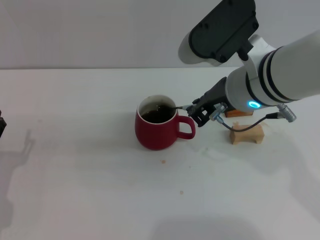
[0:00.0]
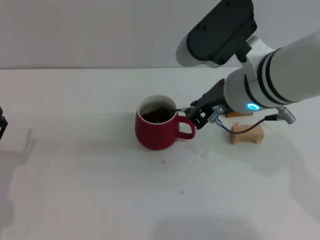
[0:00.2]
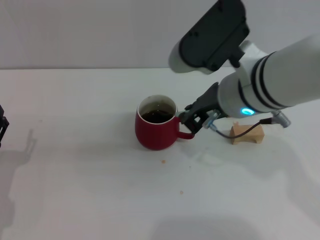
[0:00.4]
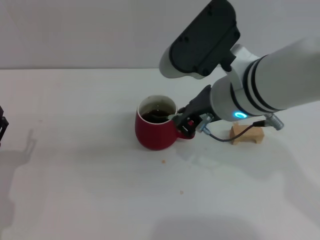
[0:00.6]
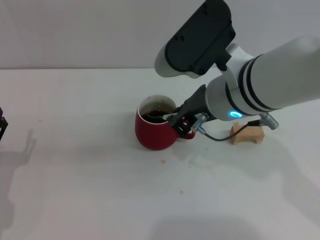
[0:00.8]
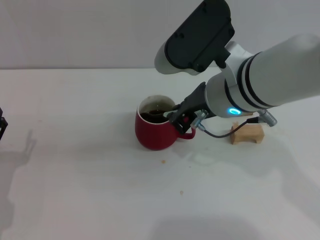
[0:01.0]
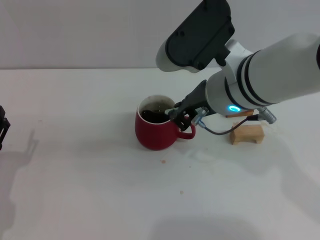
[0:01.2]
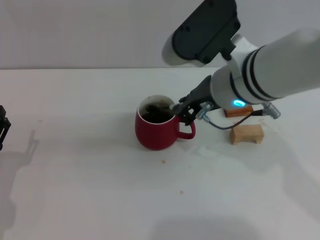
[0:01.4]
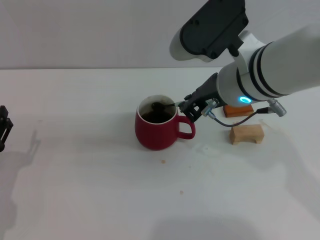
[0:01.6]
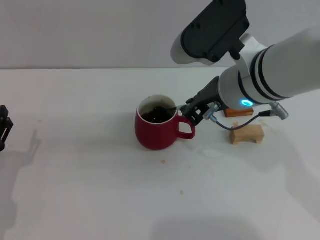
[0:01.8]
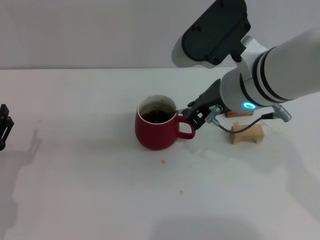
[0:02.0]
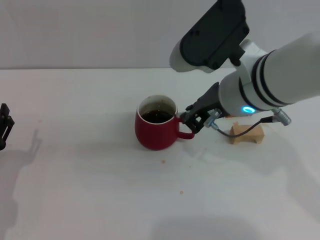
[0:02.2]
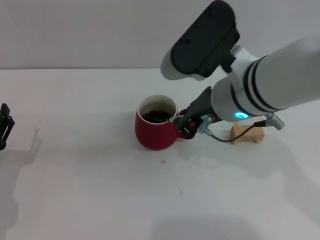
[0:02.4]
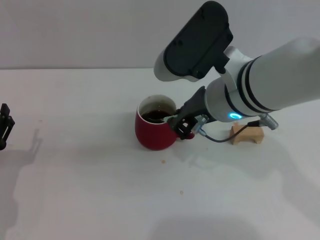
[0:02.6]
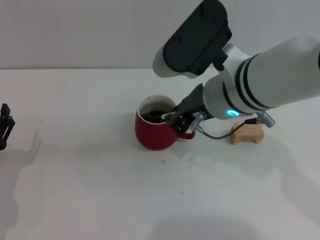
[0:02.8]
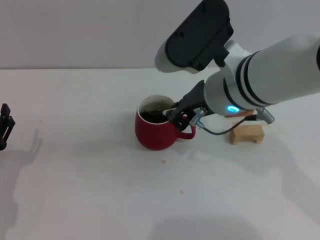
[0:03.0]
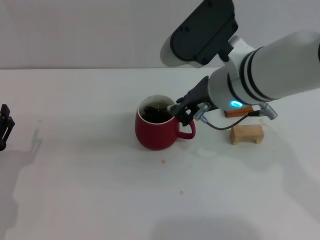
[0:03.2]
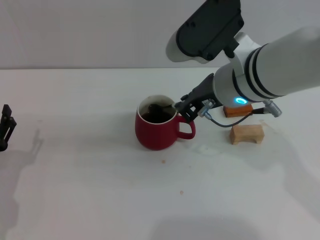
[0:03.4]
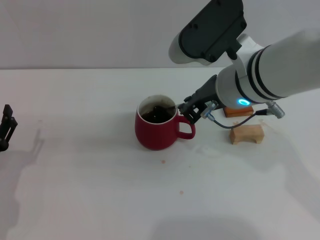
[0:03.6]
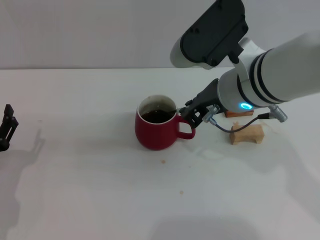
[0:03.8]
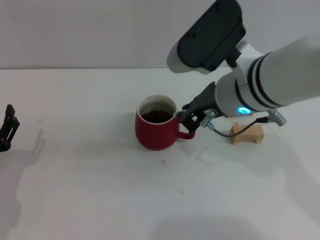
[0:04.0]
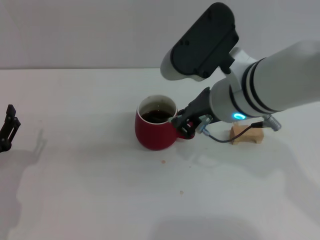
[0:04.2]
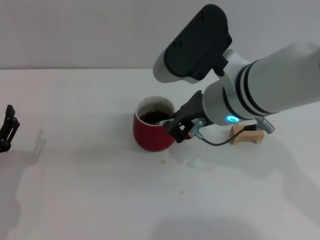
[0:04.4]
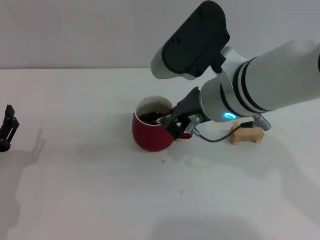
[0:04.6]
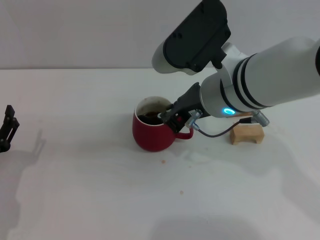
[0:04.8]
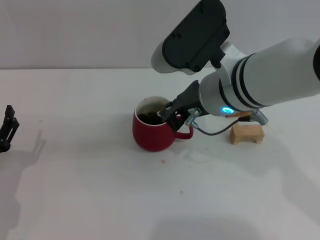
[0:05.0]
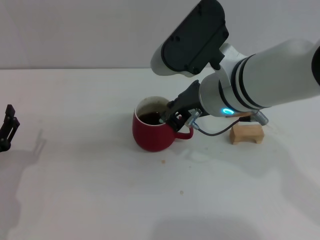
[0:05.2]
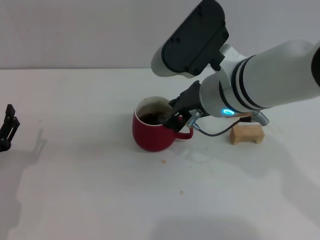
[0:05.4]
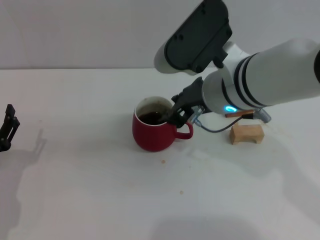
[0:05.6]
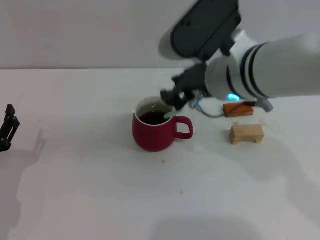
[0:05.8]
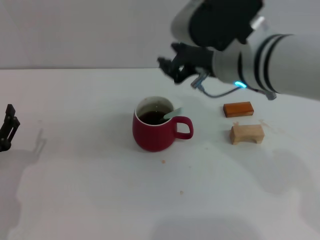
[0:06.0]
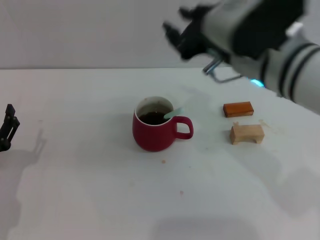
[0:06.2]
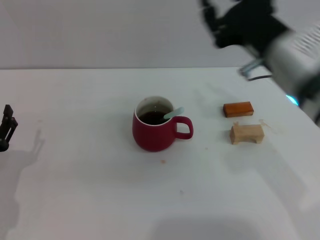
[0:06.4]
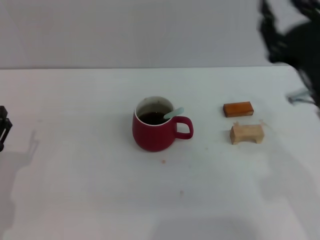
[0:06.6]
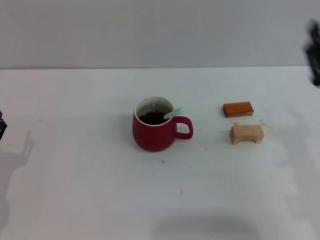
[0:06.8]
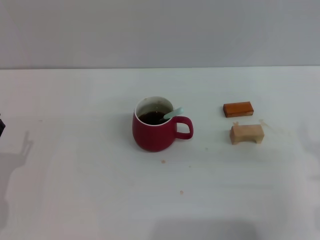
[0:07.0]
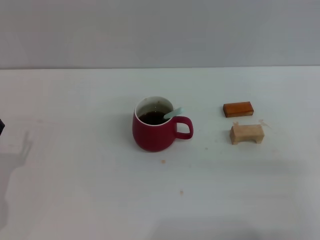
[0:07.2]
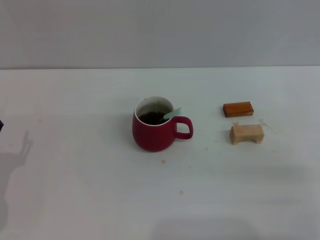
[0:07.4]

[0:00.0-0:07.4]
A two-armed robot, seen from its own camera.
Task of the whole recording: Move the red cup to the center, lift the blue spoon, stir it three times in the cup, and put the spoon into the cup.
Step, 0:00.0 to 0:05.8: Stir the coffee in the cup with the right gripper.
0:00.0 to 0:04.4: The grippers stay close to where they were, moving slightly.
0:04.4 to 0:06.0: The right gripper opens its fingers.
0:06.0 to 0:07.4: The right gripper goes about 30 cm to the right, downward and backward, and opens its fingers.

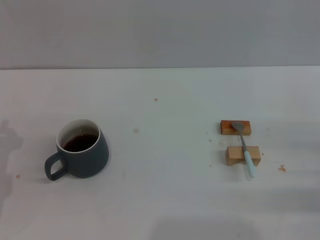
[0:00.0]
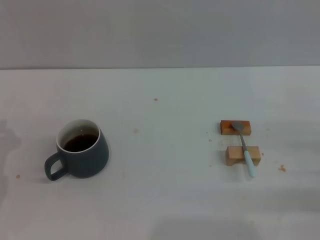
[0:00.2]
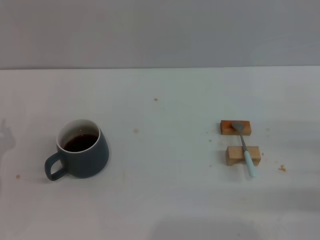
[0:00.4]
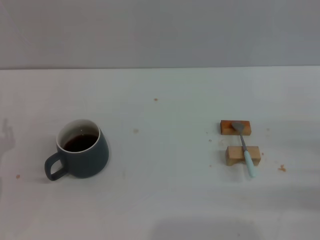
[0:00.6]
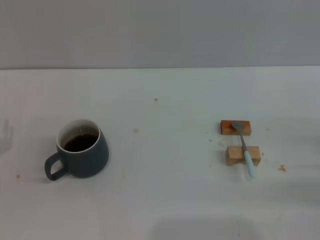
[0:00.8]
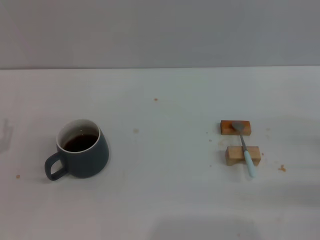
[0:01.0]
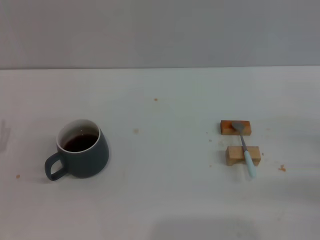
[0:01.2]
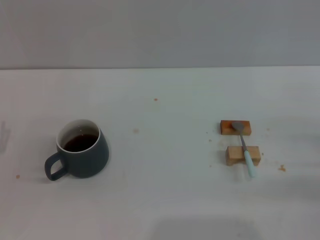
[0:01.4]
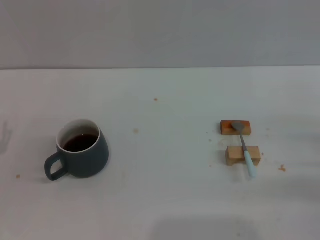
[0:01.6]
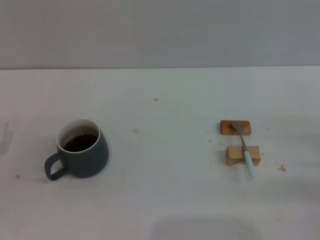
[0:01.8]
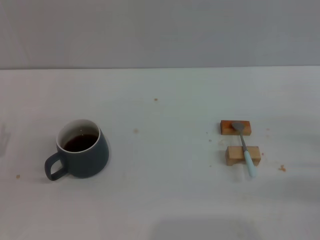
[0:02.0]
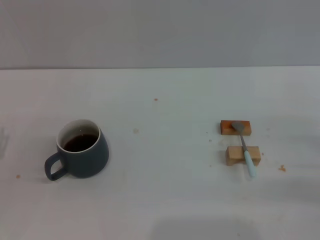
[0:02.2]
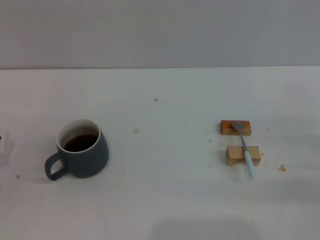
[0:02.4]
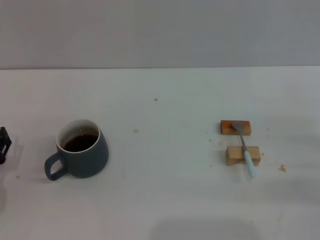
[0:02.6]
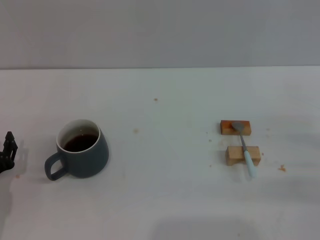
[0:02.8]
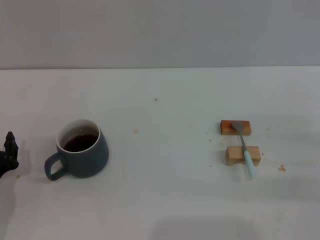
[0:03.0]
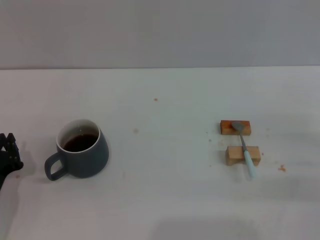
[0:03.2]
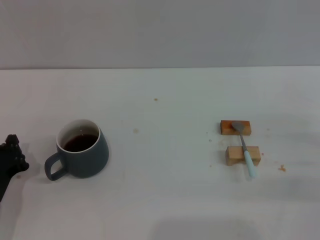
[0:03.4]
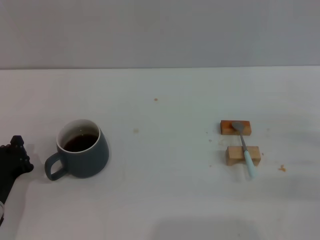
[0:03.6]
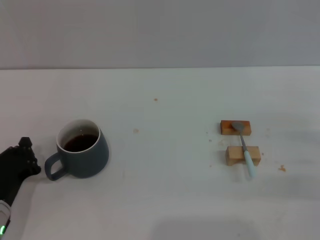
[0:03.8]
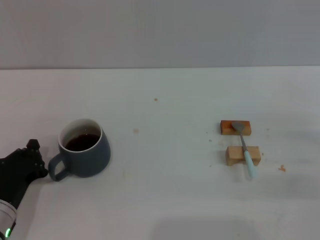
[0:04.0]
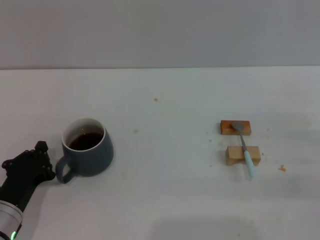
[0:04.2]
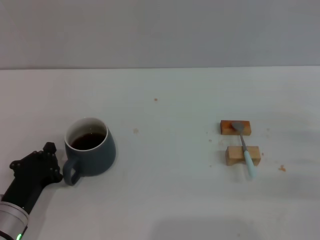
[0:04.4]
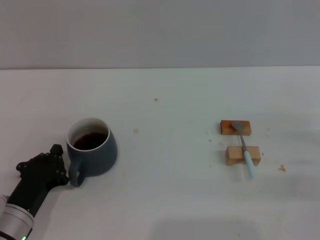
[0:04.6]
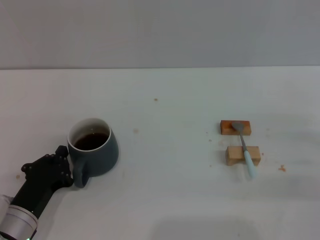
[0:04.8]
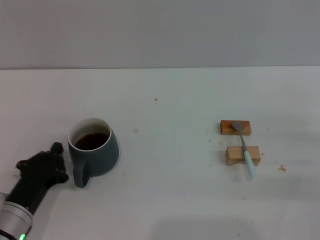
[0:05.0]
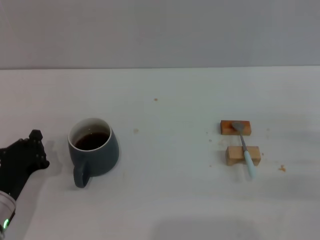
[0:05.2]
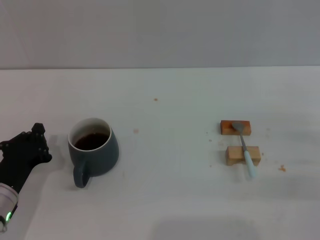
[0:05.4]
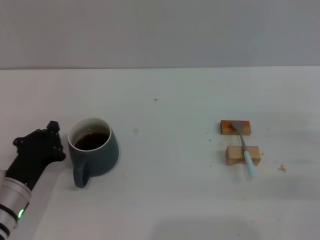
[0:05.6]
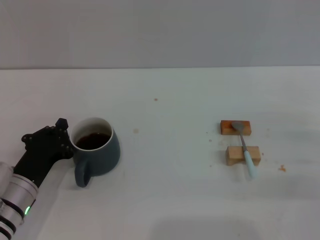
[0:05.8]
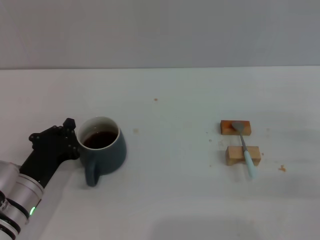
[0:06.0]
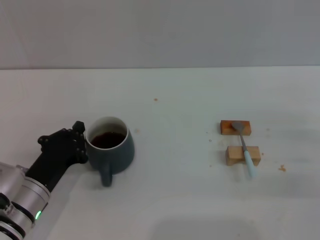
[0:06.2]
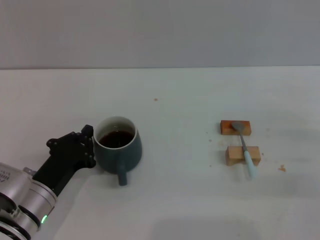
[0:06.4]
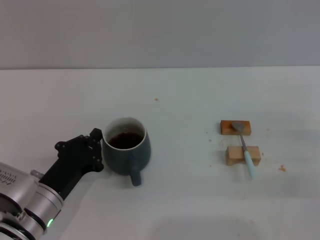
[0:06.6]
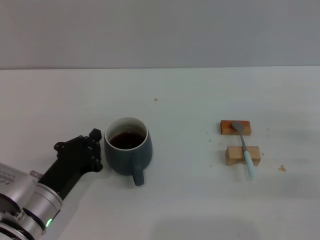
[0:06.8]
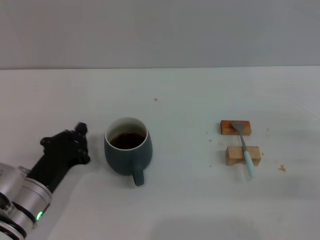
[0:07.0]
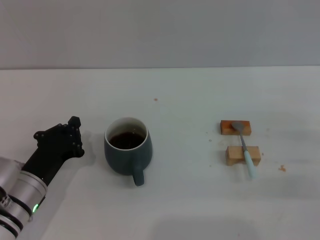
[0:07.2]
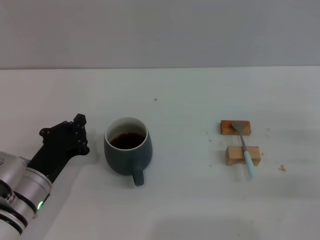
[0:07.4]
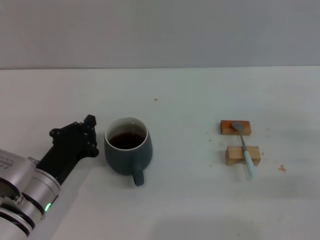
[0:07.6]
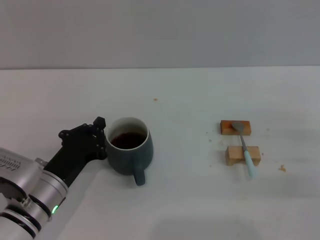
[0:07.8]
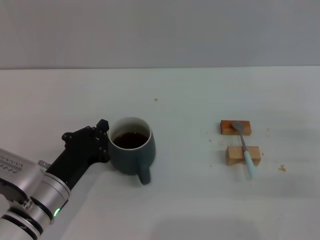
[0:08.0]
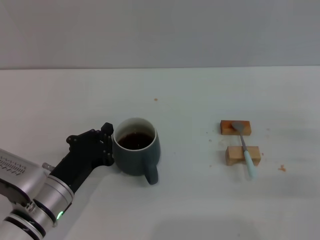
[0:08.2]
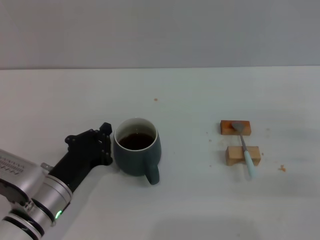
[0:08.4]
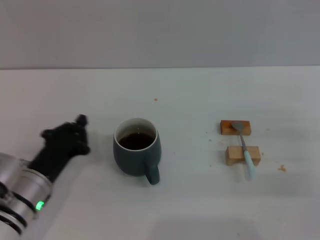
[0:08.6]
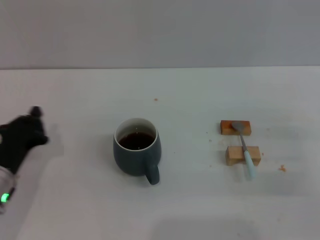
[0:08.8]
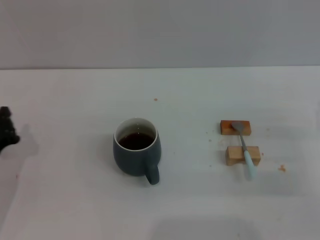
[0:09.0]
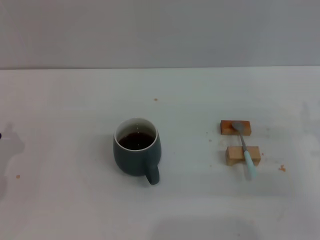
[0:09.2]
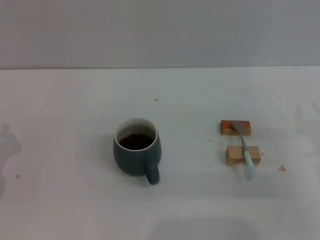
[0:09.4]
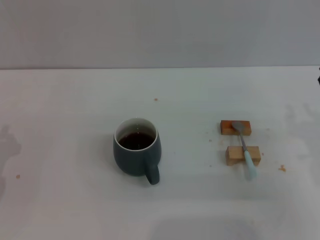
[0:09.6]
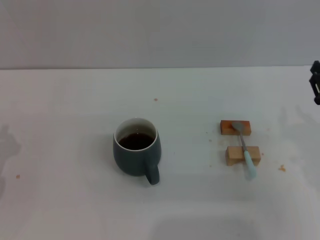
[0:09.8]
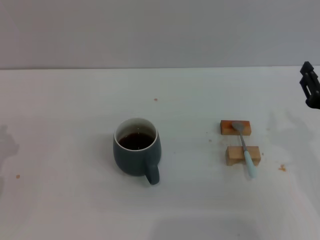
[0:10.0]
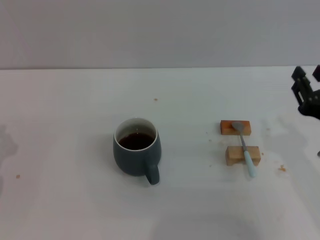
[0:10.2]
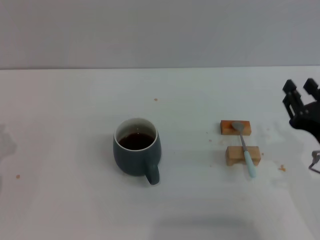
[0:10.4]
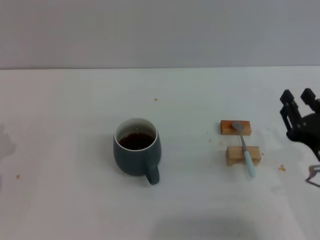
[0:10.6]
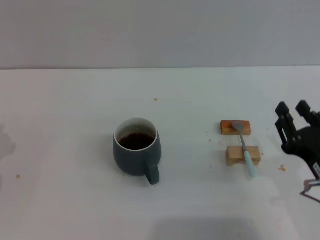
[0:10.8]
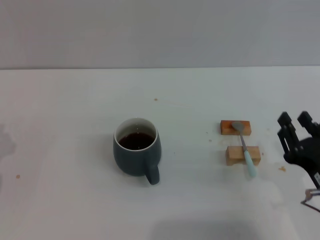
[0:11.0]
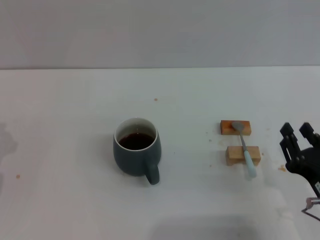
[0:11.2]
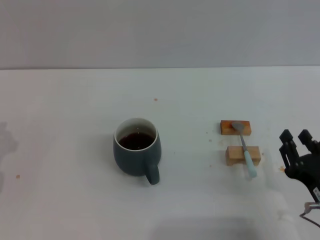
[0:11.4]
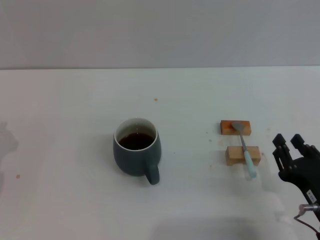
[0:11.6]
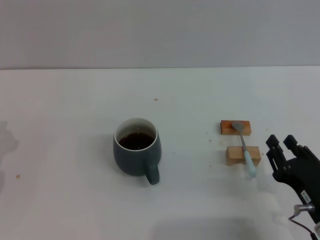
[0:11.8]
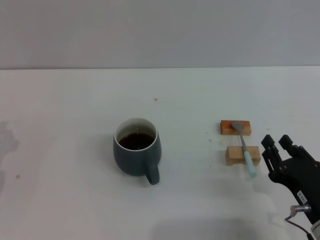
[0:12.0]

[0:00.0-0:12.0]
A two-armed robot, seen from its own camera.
Task of the whole recording: Move the grey cup to the center, lift the blue spoon, stir it three times in the cup, and put the spoon into the cup.
Step, 0:00.0 to 0:08.4: Move the cup with coffee to the center of view with the left gripper.
0:01.6 to 0:03.0: The left gripper moves approximately 5 cm.
0:03.0 to 0:04.4: The left gripper ends up approximately 5 cm from where it was, and closes.
0:04.4 to 0:07.6: The grippers stay close to where they were, moving slightly.
0:07.6 to 0:09.0: The left gripper goes some 10 cm to the left.
0:09.0 to 0:10.4: The right gripper heads to the left and backward, covering roughly 10 cm.
0:10.4 to 0:12.0: The right gripper shifts about 10 cm downward.

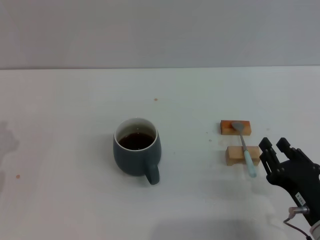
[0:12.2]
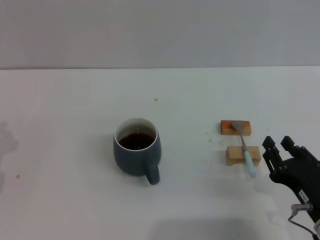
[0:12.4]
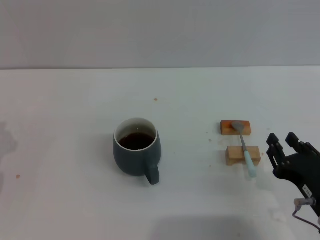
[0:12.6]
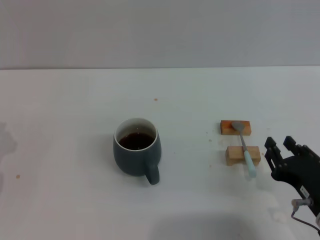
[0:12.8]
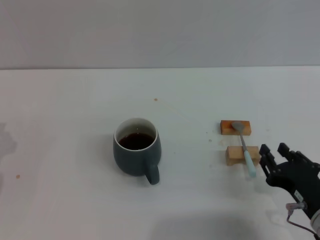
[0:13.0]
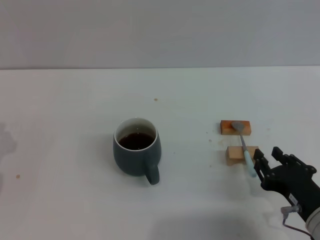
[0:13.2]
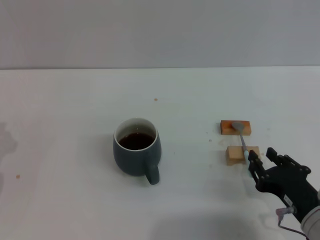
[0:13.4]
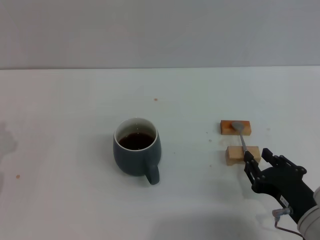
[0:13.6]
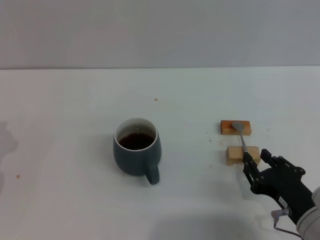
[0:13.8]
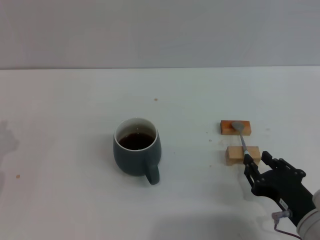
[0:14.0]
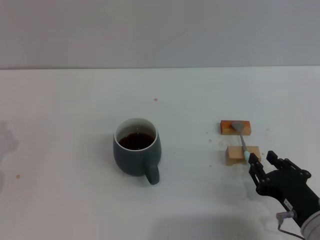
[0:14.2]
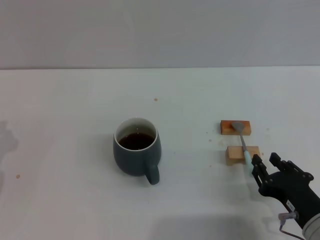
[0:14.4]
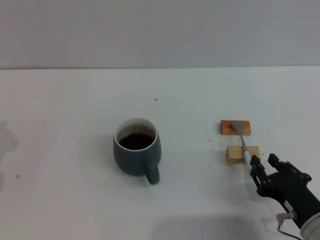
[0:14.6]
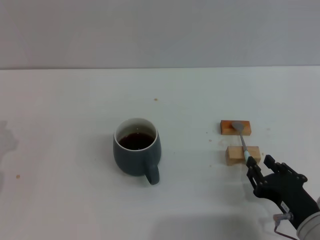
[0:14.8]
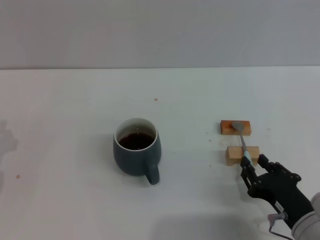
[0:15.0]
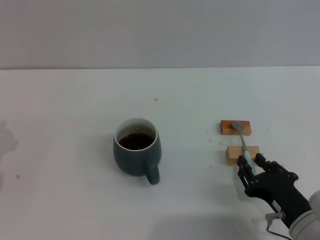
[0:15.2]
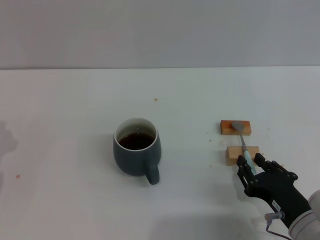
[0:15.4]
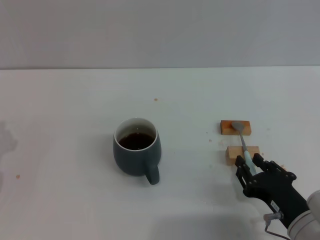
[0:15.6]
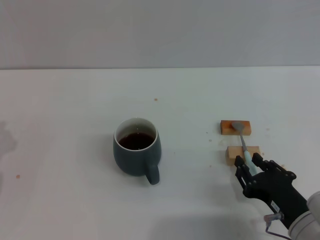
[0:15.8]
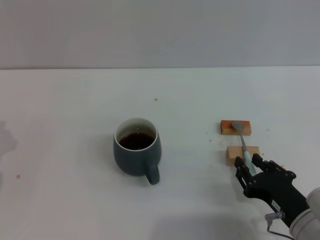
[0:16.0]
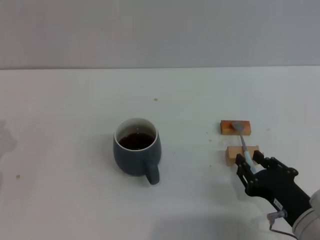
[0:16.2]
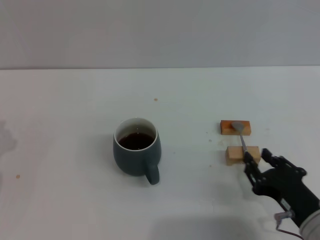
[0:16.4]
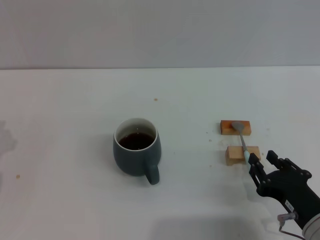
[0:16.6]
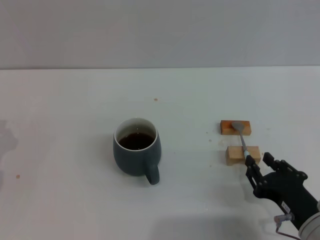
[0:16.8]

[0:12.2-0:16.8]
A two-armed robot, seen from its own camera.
Task of the whole recording: Move the grey cup to the center, lift the blue spoon, stir it three times in the cup, and put the spoon into the cup.
0:12.2 to 0:16.8: The grippers make only small movements.
